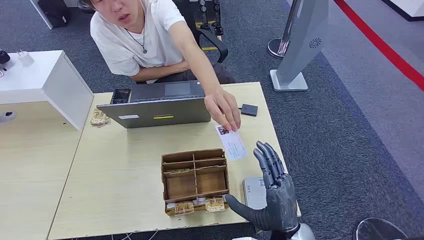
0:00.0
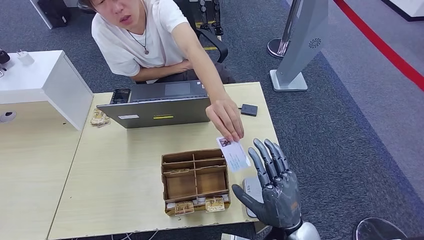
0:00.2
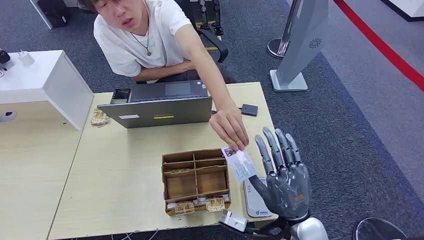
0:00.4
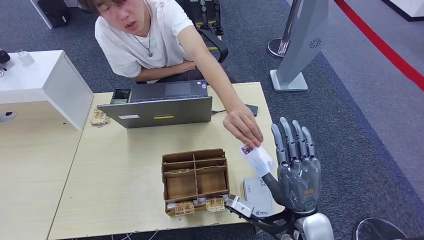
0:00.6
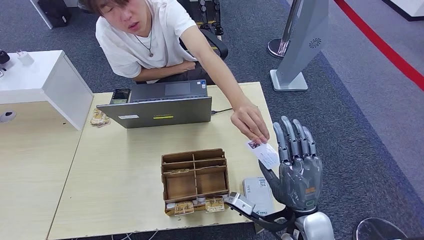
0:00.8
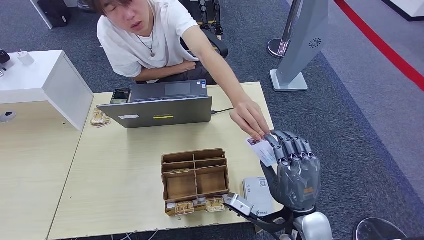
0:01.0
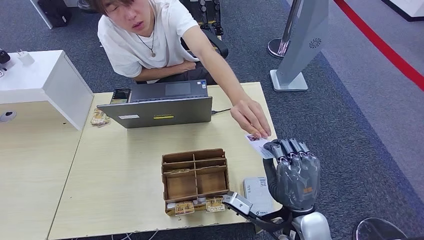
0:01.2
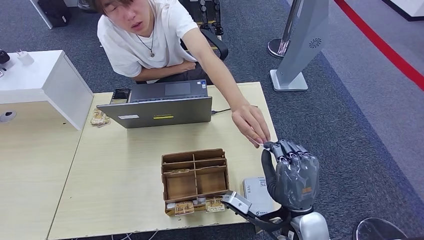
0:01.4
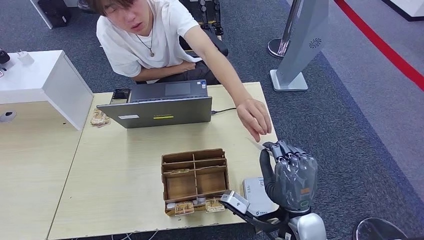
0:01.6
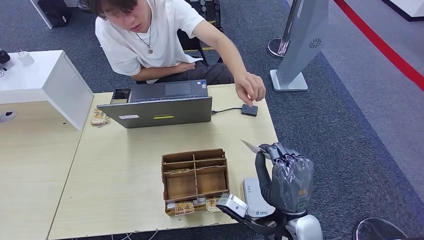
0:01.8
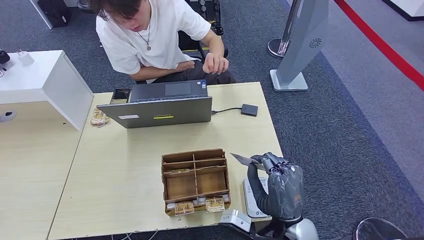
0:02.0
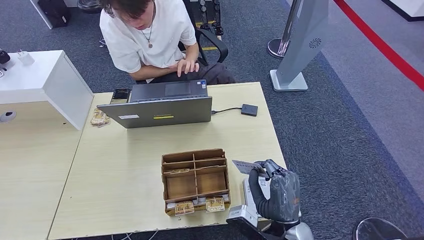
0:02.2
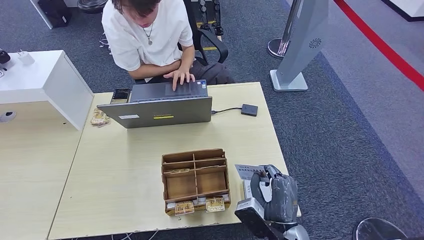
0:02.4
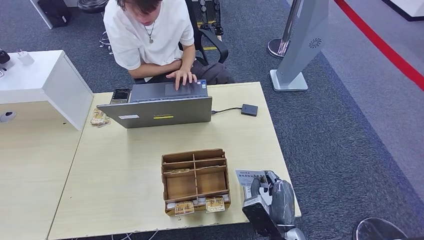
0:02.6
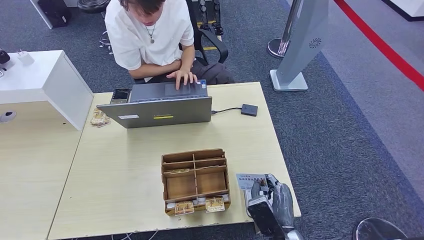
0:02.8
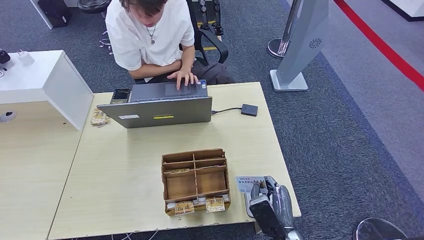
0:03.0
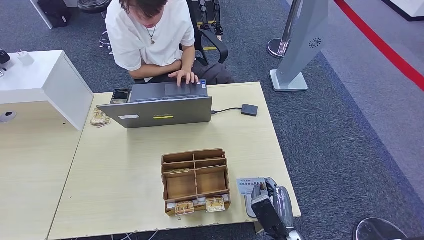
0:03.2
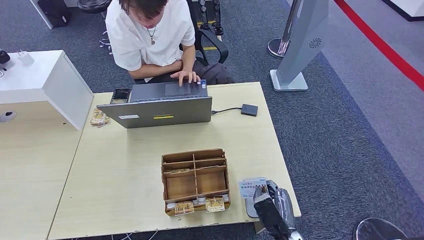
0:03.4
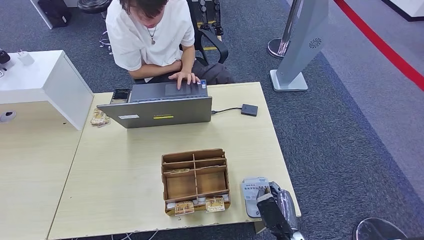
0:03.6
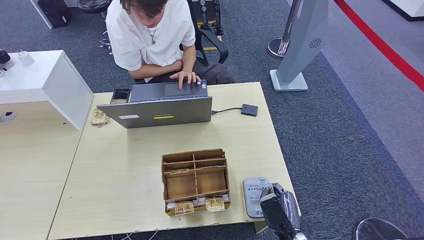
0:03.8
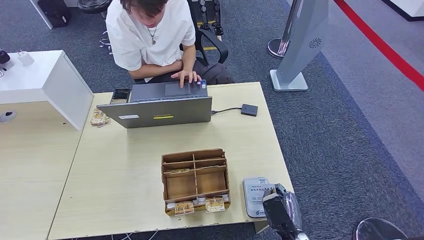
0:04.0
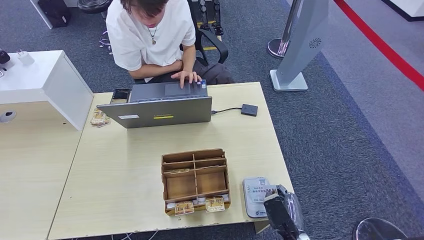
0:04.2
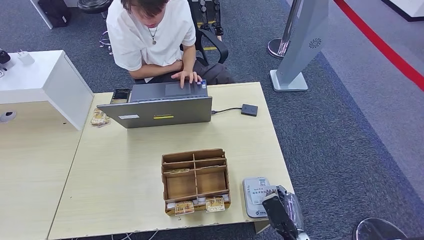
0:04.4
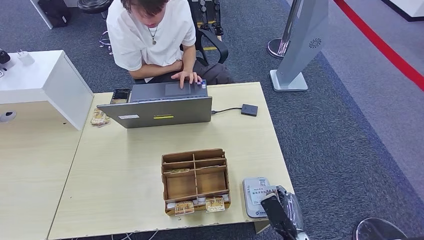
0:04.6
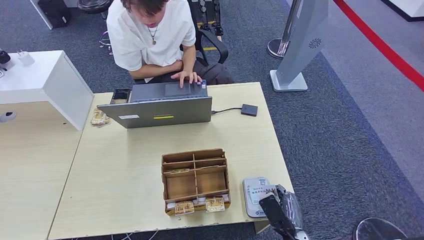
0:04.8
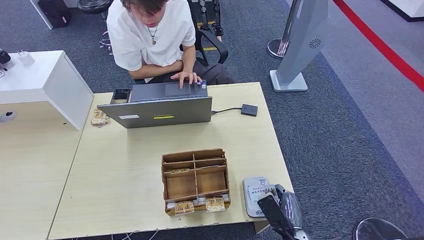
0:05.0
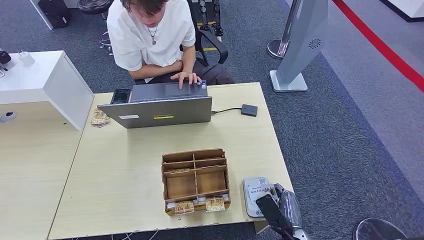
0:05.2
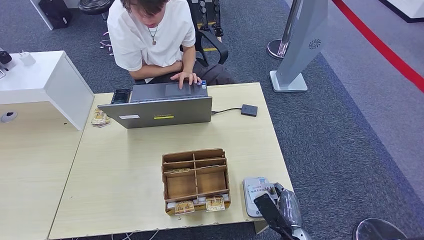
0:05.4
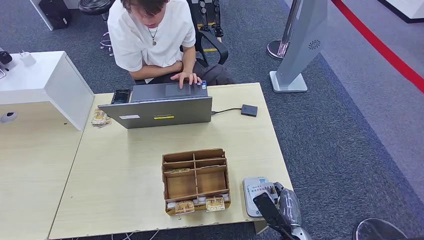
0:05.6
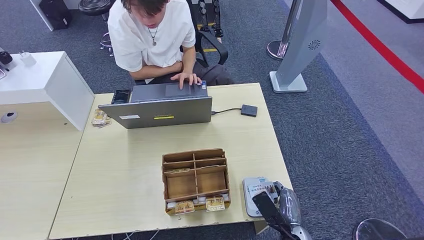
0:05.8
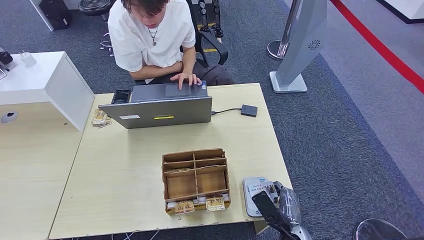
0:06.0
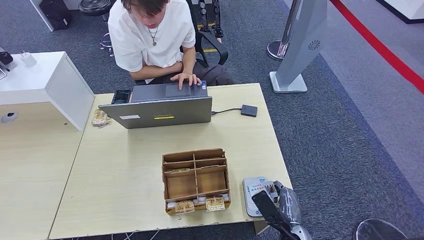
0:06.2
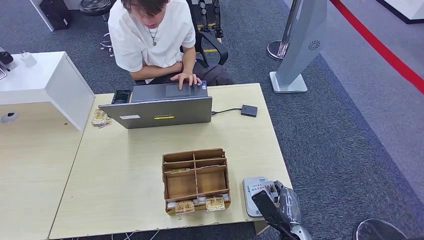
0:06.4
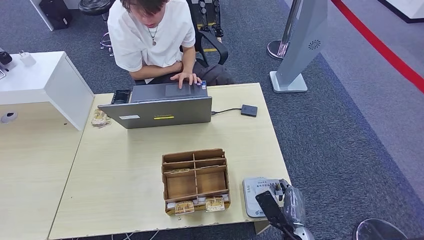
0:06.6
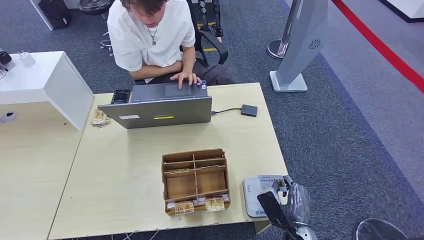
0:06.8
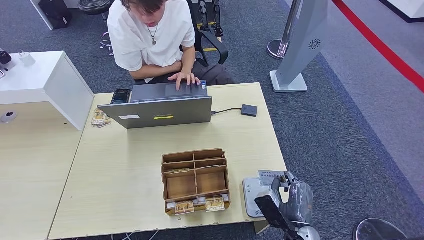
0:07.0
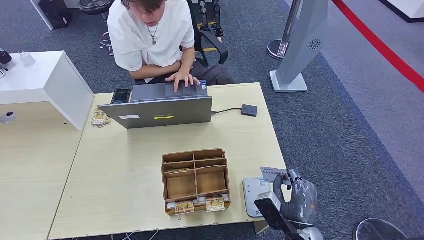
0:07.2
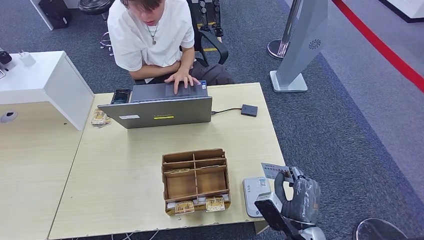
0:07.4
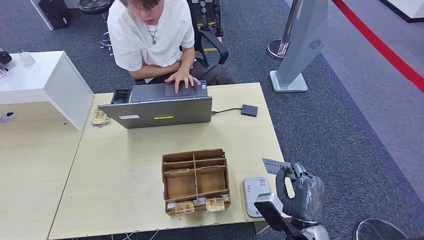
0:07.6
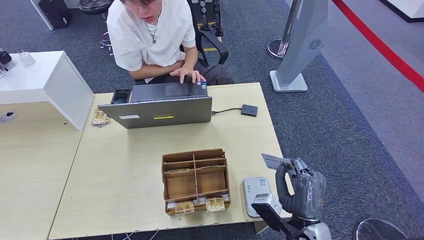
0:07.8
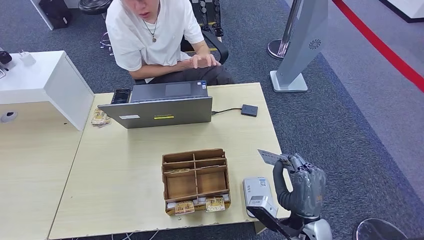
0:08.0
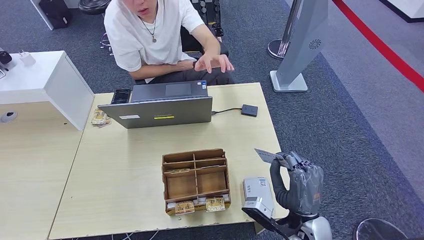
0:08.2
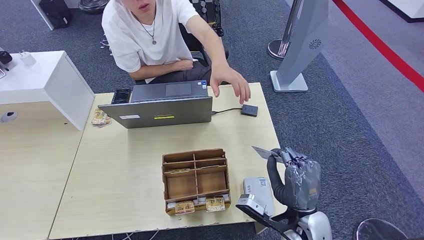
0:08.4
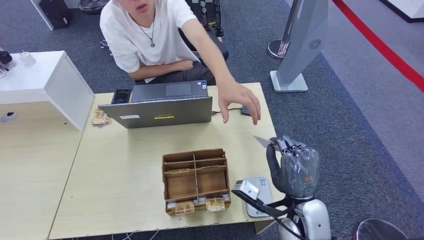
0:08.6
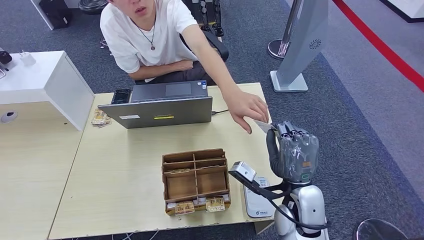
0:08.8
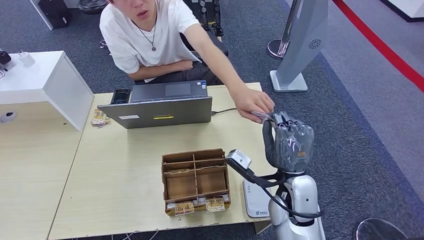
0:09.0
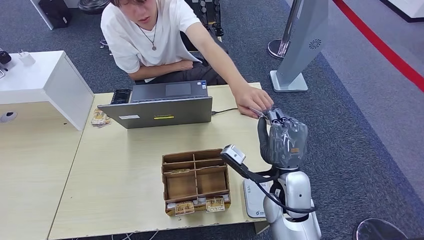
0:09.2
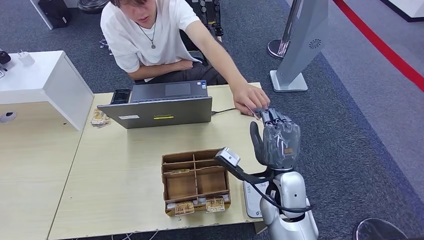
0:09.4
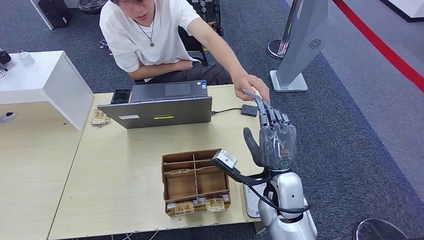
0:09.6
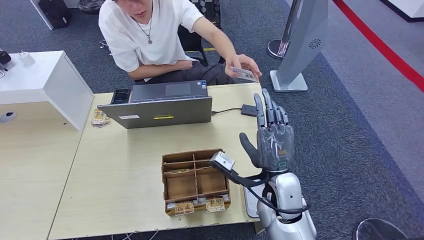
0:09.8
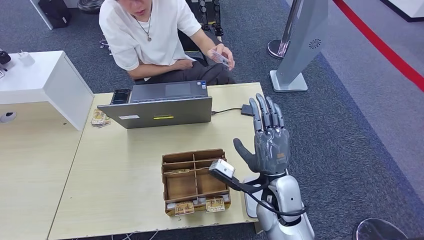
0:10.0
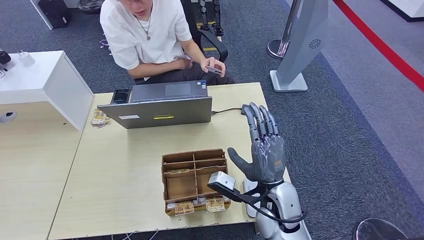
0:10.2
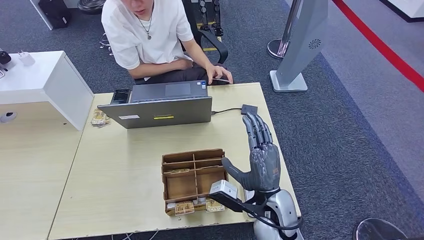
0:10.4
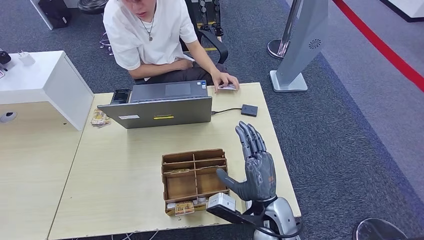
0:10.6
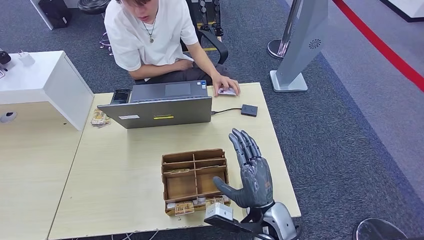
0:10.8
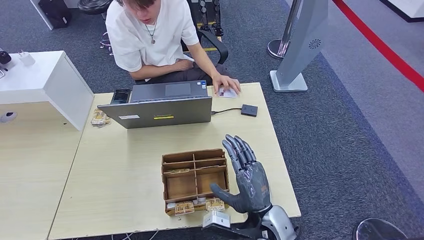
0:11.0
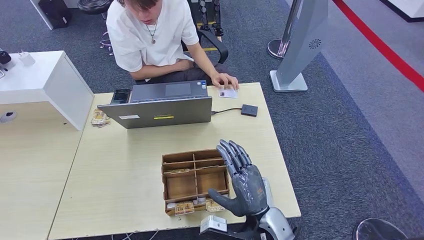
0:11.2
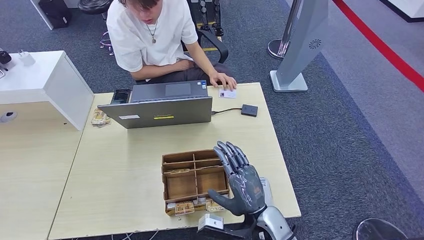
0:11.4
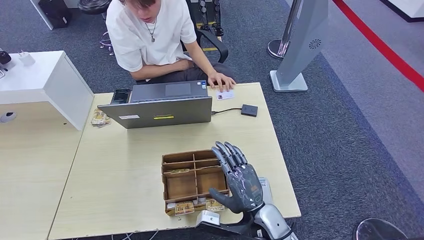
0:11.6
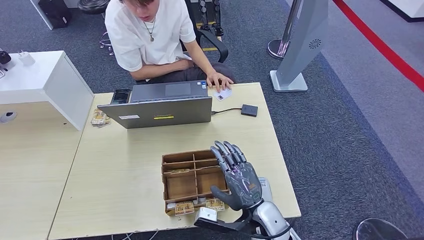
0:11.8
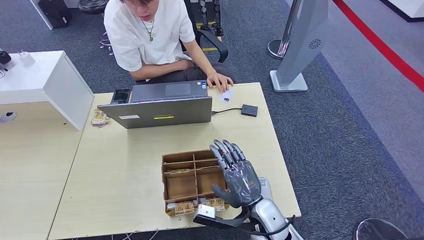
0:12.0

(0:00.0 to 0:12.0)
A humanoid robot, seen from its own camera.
Step, 0:00.0 - 0:02.0: Take the ID card from the person's hand.
Step, 0:02.2 - 0:07.4: Place the ID card on the card reader.
Step, 0:07.8 - 0:10.2: Hand the ID card to the person.
0:01.6 - 0:03.0: The right hand shifts roughly 10 cm downward.
0:03.0 - 0:04.4: The right hand ends up approximately 5 cm from where it was.
0:04.4 - 0:06.0: The hands move only a little.
0:06.0 - 0:07.6: The right hand heads upward, covering some 10 cm.
0:07.6 - 0:09.0: The right hand shifts some 15 cm forward and upward.
0:09.0 - 0:10.4: The right hand changes place by some 5 cm.

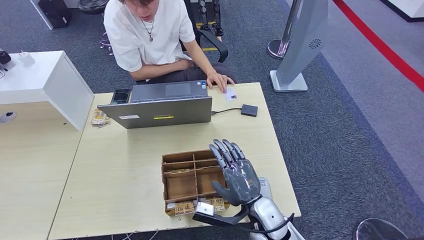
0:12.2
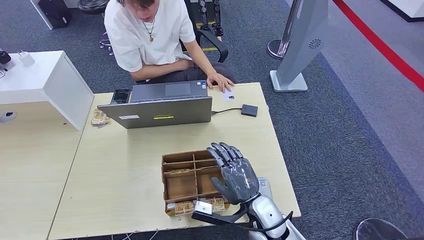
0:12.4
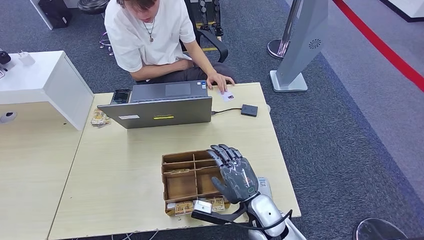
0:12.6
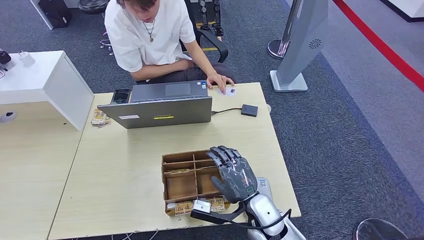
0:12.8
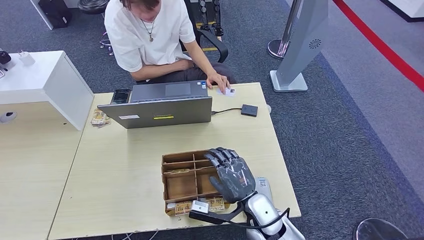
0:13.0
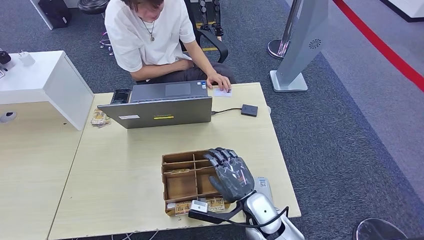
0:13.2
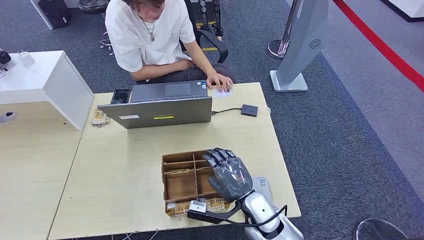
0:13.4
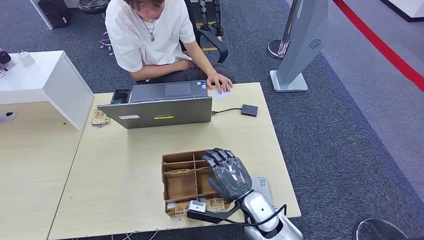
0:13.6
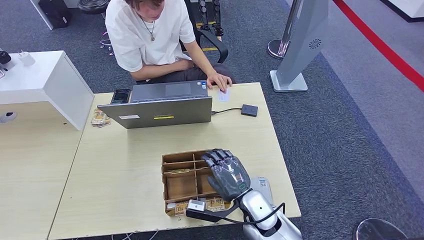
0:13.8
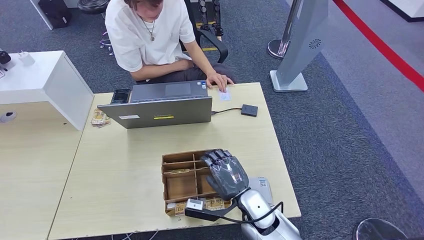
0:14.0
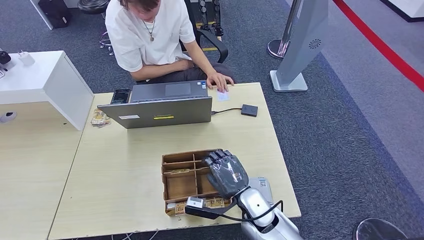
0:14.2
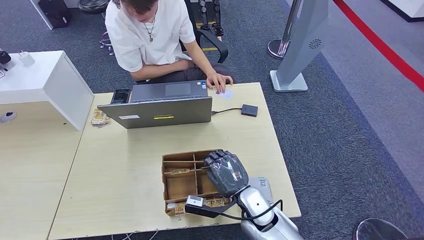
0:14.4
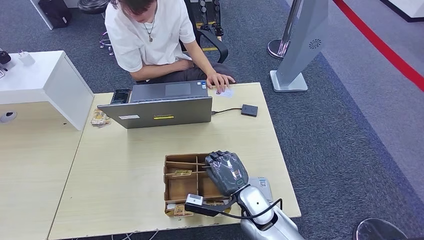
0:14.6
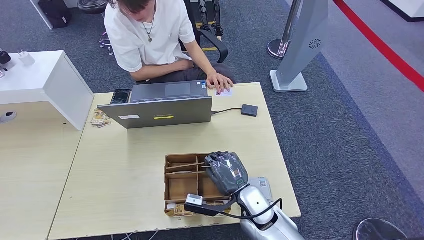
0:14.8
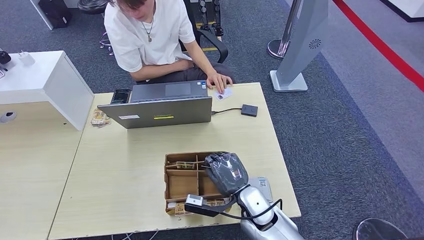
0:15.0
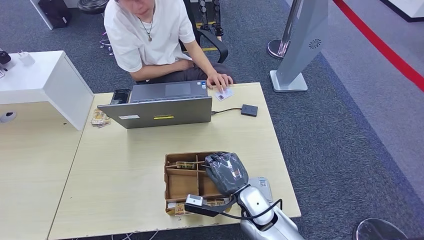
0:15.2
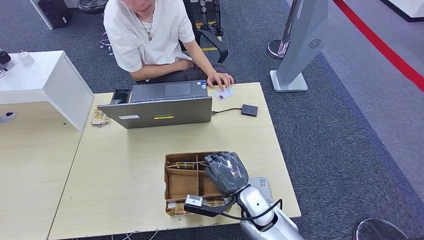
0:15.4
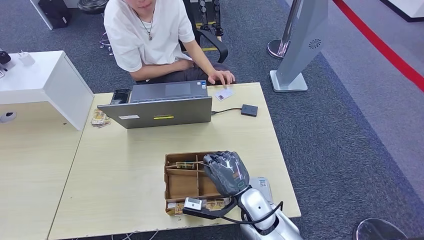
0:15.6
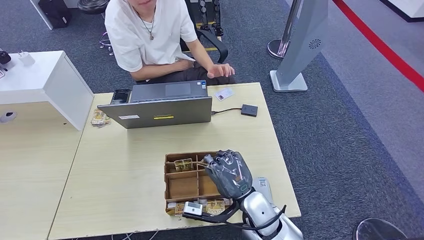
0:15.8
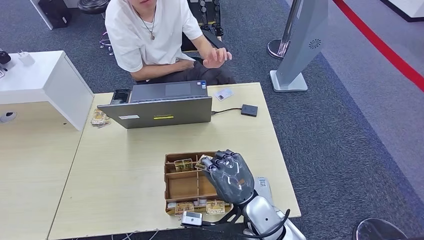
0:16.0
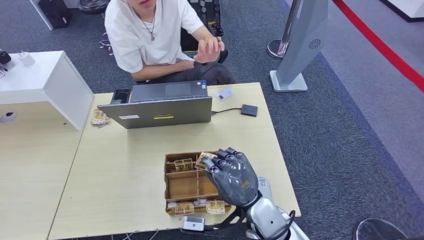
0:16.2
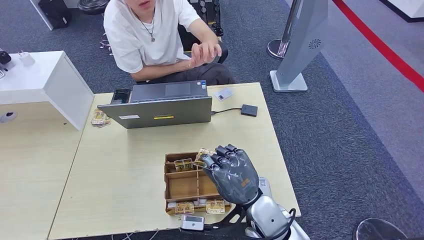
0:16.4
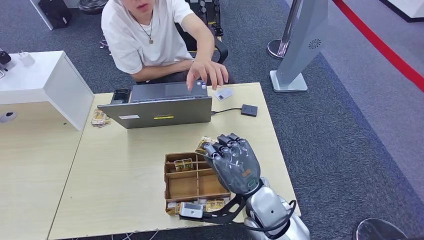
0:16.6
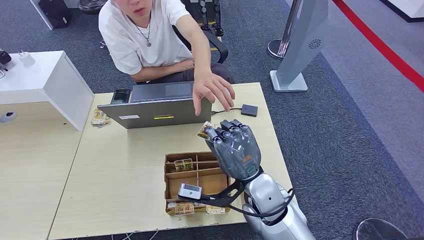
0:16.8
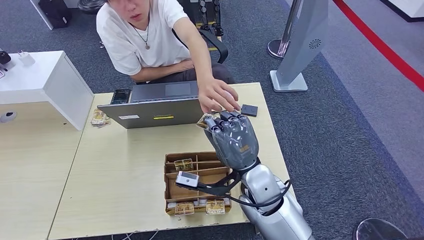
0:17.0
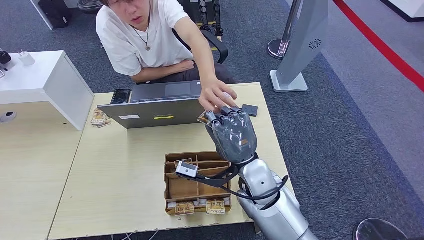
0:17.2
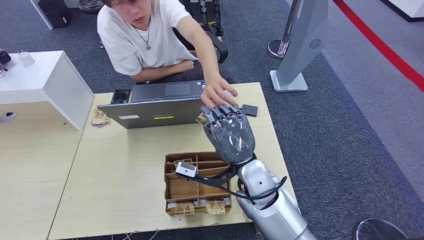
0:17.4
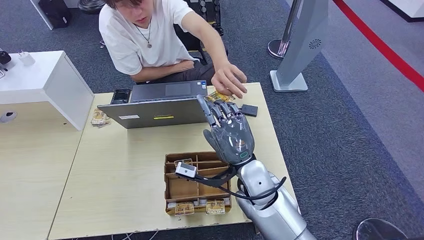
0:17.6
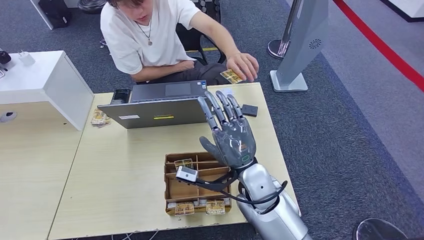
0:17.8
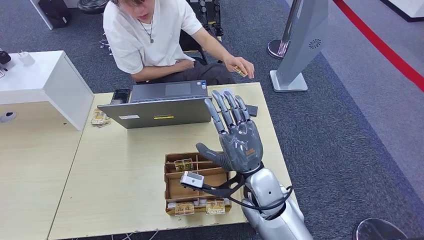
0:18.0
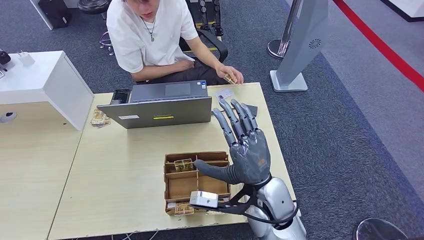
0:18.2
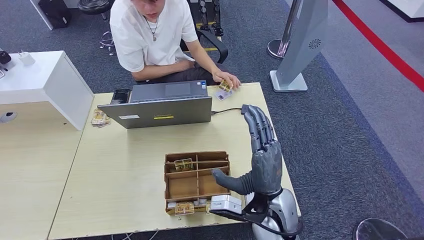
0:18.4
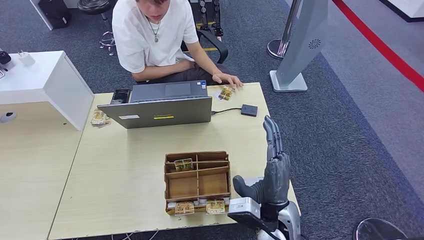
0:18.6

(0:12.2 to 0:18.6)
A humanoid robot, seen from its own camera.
Step, 0:14.2 - 0:16.4: Pick up the room key from the key card box.
Step, 0:16.6 - 0:18.6: Hand the room key to the person.
0:12.2 - 0:13.8: The hands move only a little.
0:13.8 - 0:15.4: The two hands keep their place.
0:15.4 - 0:17.0: The right hand heads upward, covering roughly 10 cm.
0:17.0 - 0:18.6: The right hand moves backward and downward, about 10 cm.
